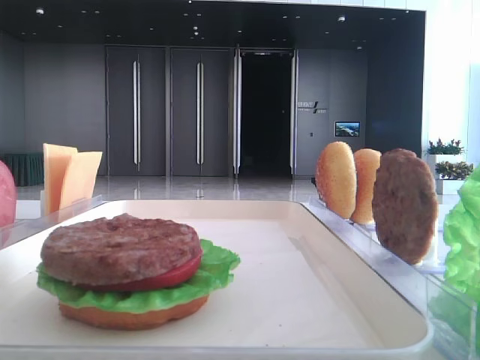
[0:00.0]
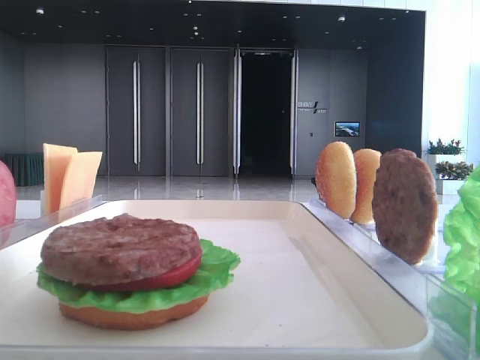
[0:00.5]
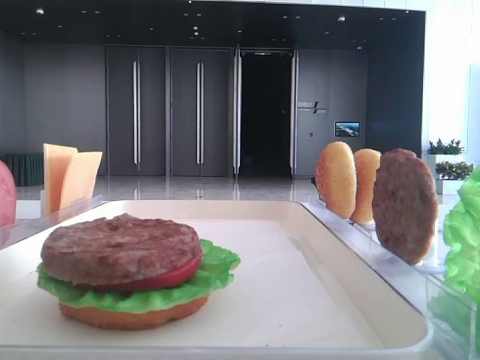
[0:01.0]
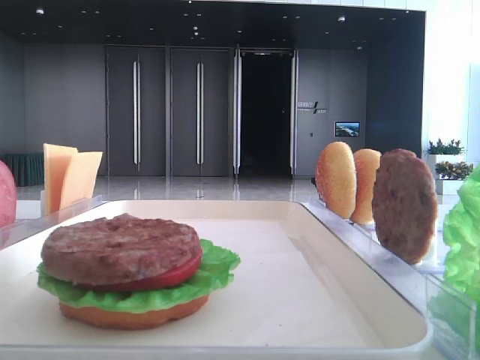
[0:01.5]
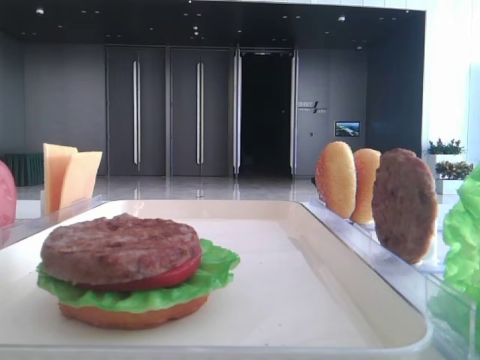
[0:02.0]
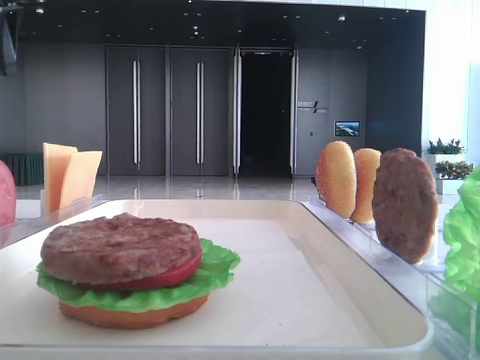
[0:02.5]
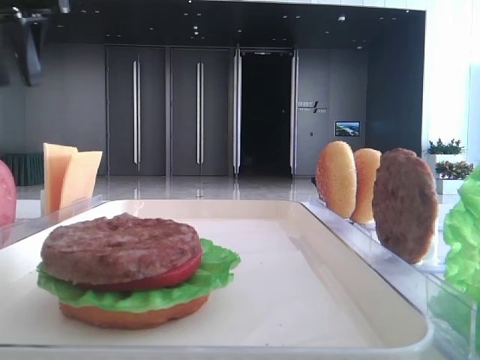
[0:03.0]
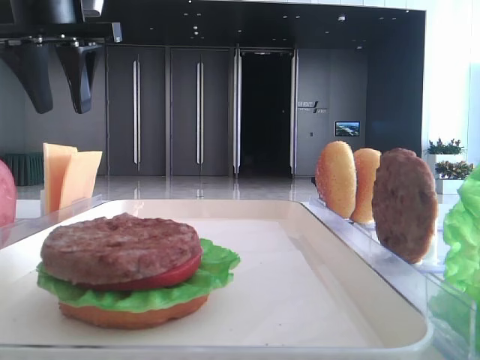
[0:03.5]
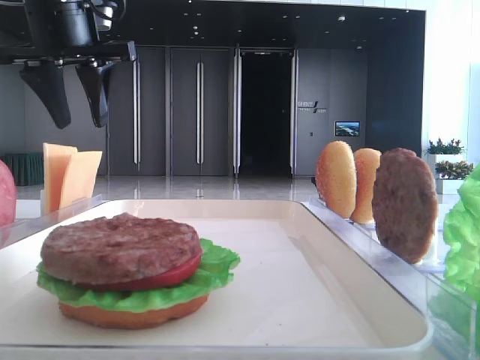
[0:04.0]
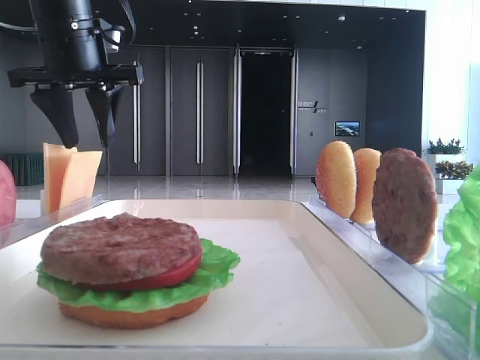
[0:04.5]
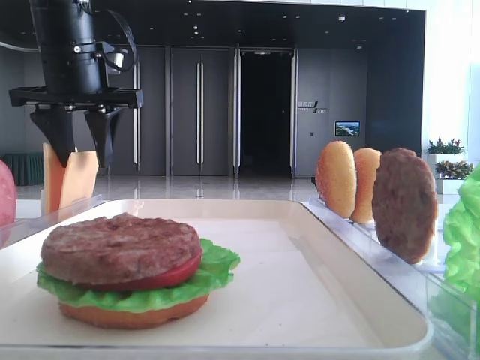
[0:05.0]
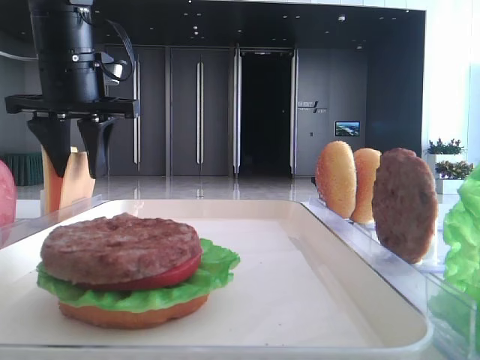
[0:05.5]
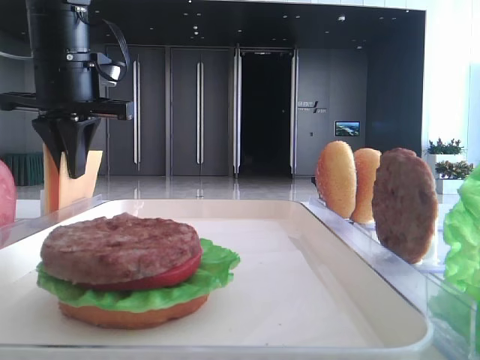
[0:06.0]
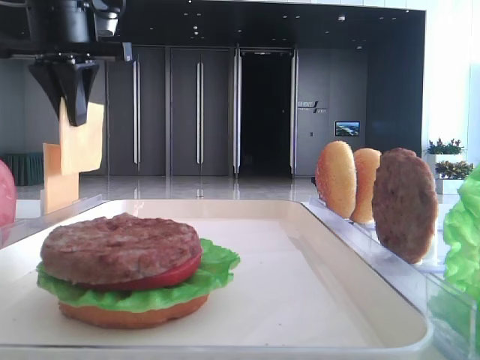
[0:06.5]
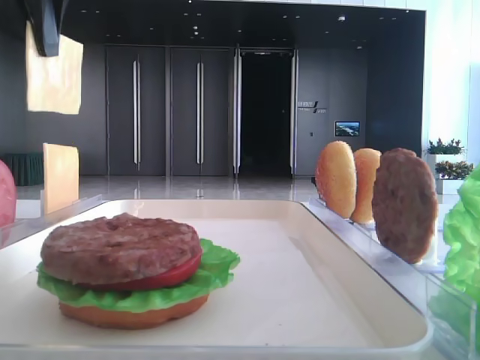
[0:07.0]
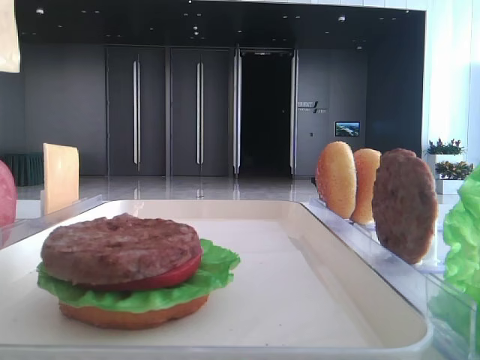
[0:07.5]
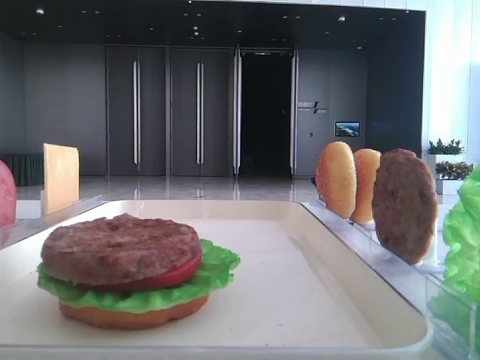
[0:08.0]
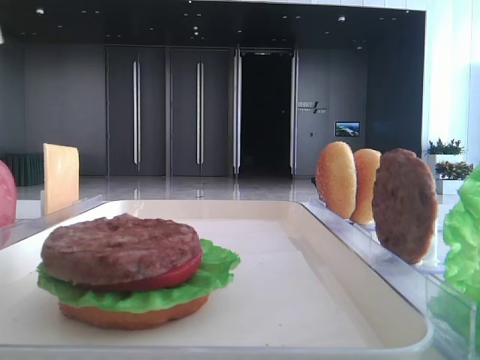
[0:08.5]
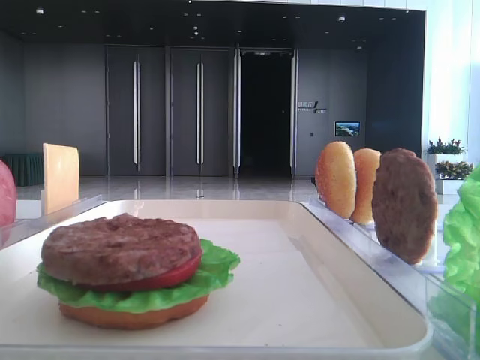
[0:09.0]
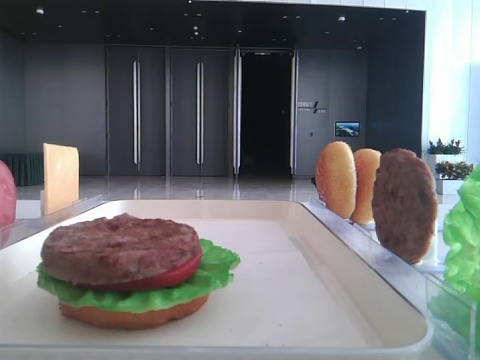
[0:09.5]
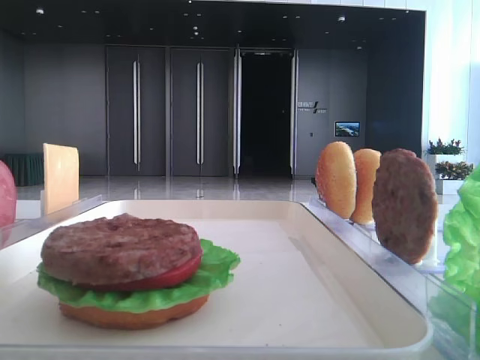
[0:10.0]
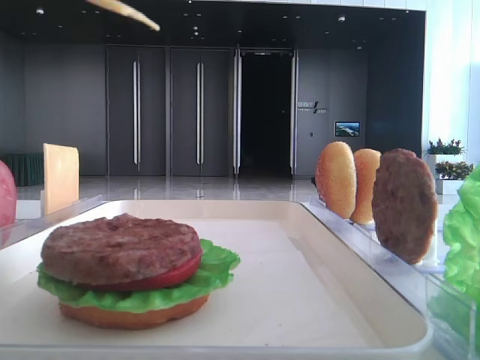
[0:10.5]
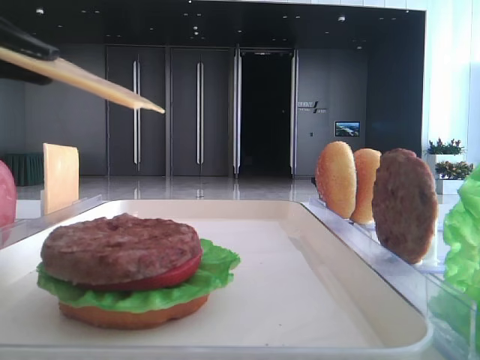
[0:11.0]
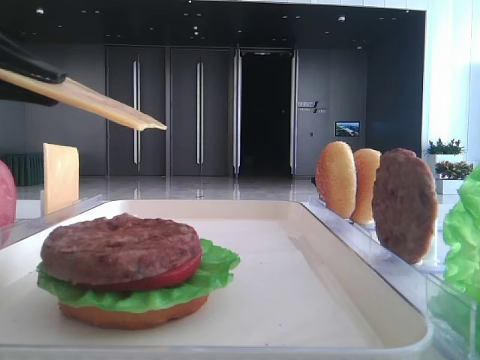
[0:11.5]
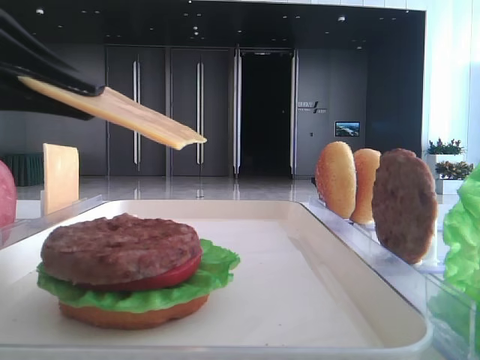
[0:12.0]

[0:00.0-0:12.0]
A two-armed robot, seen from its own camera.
Step, 0:00.0 to 0:05.5: Pick up the cheese slice with the left hand.
0:02.0 to 0:04.0: The left gripper shifts about 20 cm forward, to the right and downward.
0:04.0 to 0:06.0: The left gripper moves downward, roughly 5 cm, and closes its fingers.
0:06.0 to 0:08.0: The left gripper heads backward and upward, covering approximately 30 cm.
0:10.0 to 0:12.0: The left gripper moves downward, some 10 cm.

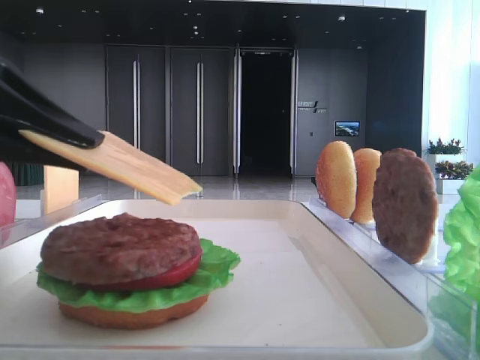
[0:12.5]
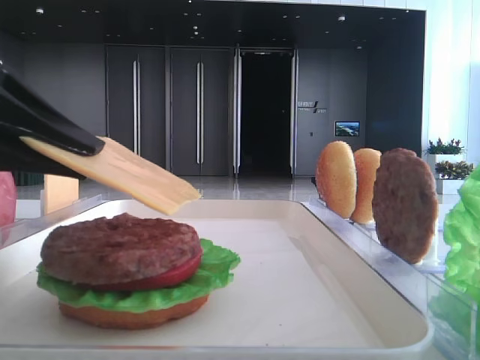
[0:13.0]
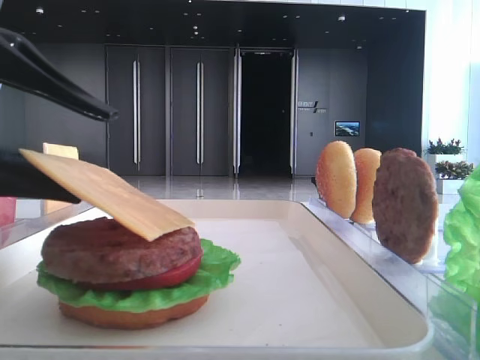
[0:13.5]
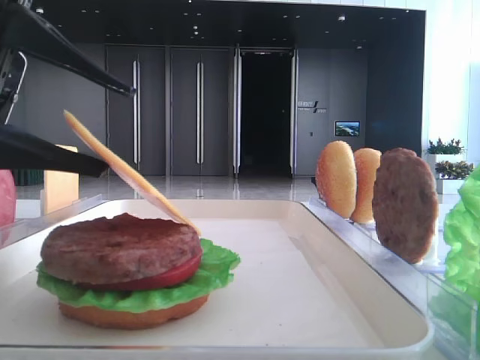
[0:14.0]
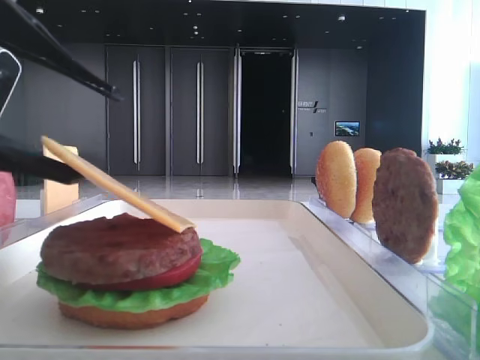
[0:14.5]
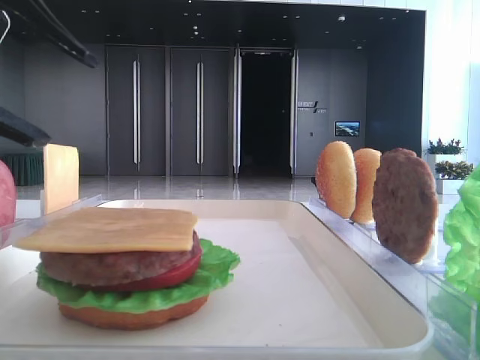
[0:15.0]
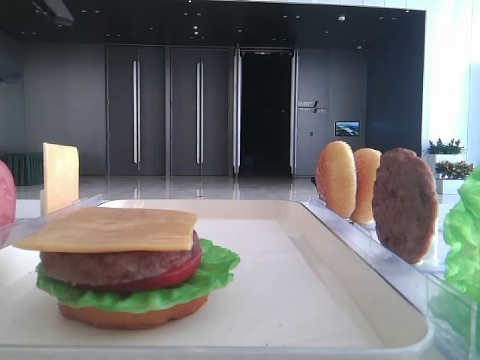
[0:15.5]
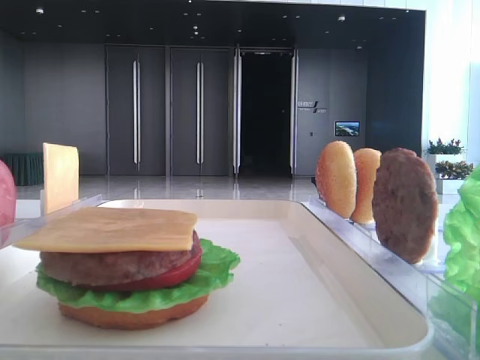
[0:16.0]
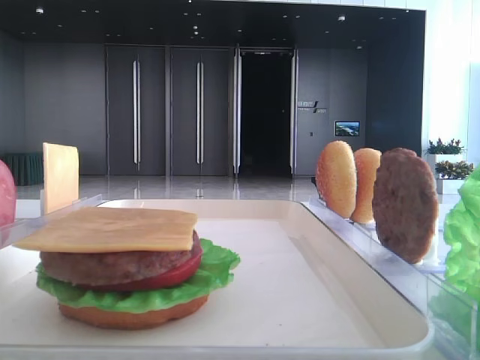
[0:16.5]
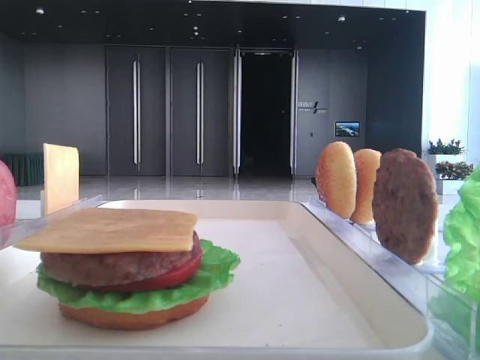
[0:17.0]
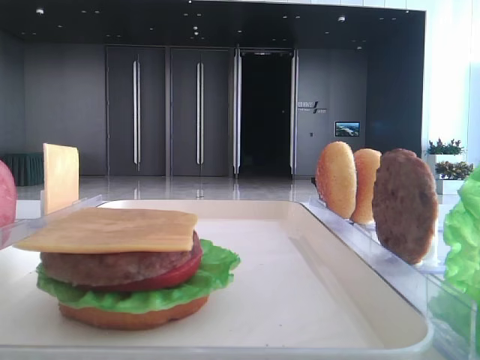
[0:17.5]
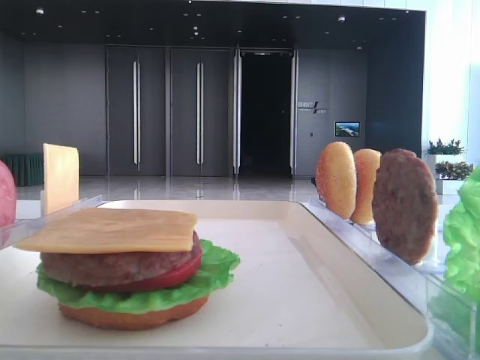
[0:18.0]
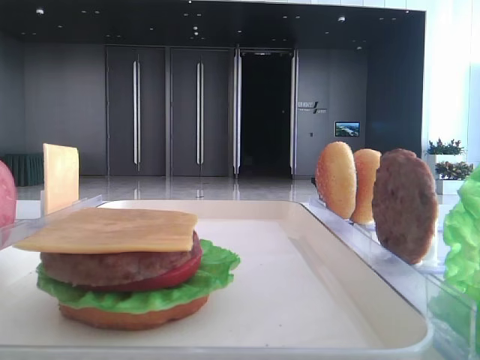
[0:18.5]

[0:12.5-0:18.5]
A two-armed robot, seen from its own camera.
Step, 0:12.5 to 0:14.5: Place the cheese slice on the patty with the left hand.
0:12.5 to 0:14.5: The left gripper opens its fingers.
0:14.5 to 0:16.5: The left gripper goes about 20 cm upward and to the left.

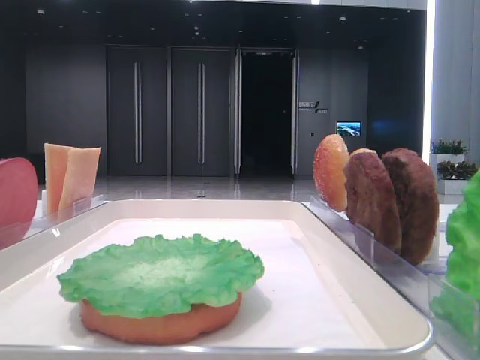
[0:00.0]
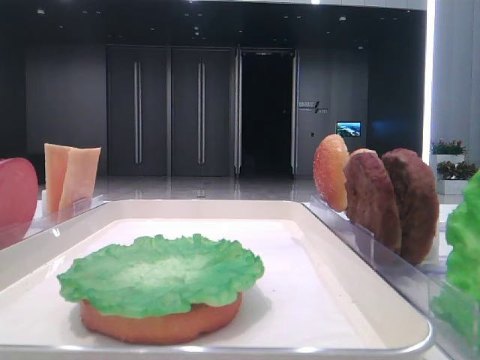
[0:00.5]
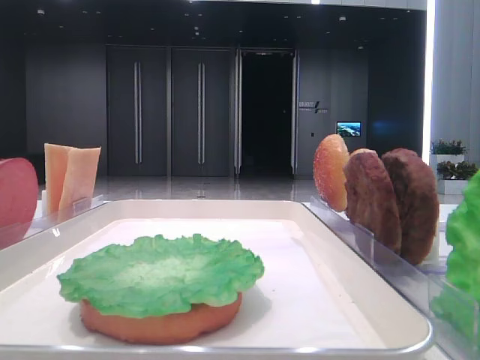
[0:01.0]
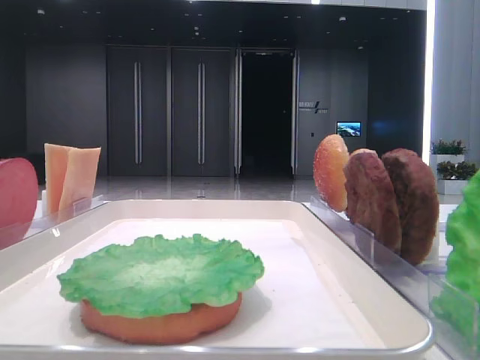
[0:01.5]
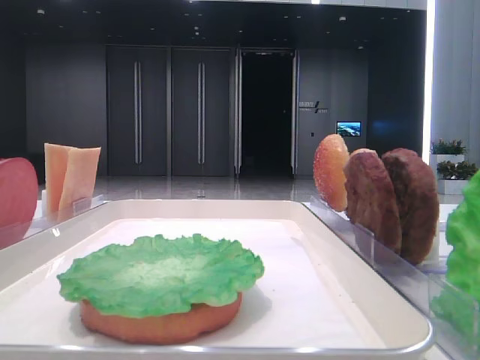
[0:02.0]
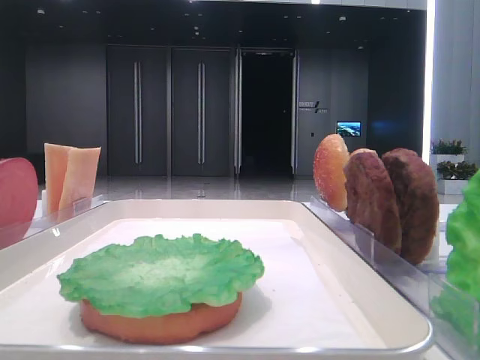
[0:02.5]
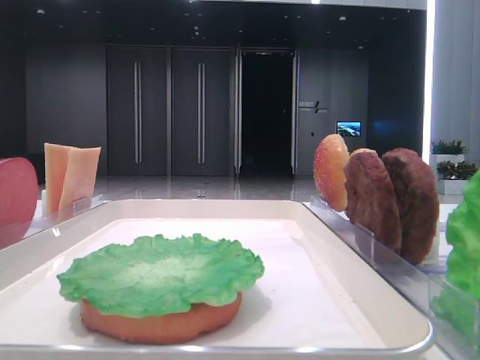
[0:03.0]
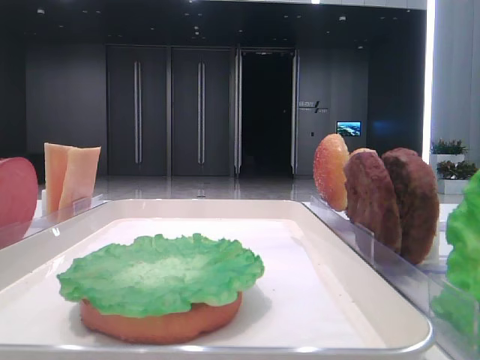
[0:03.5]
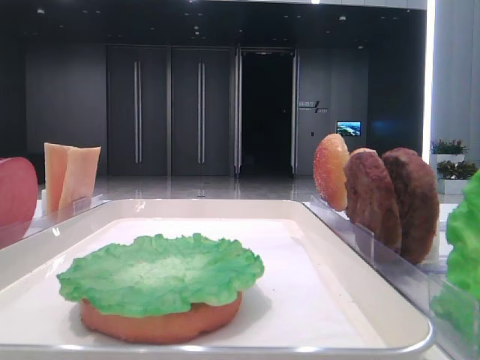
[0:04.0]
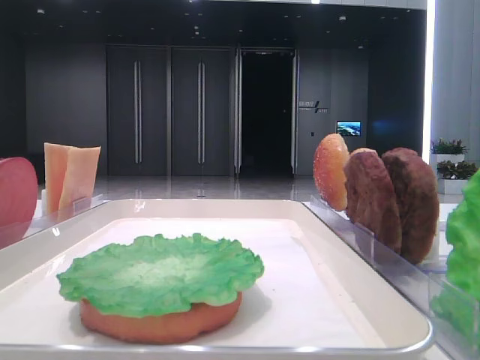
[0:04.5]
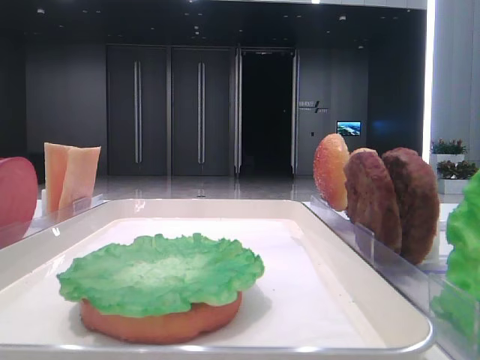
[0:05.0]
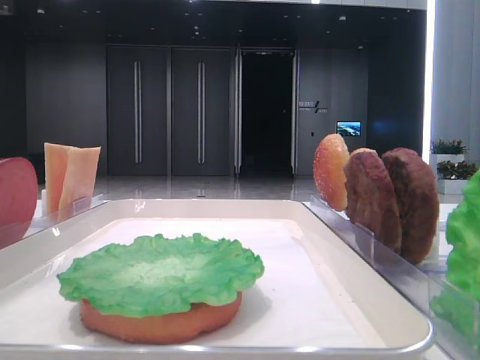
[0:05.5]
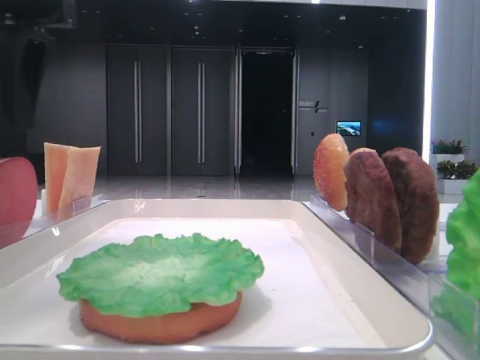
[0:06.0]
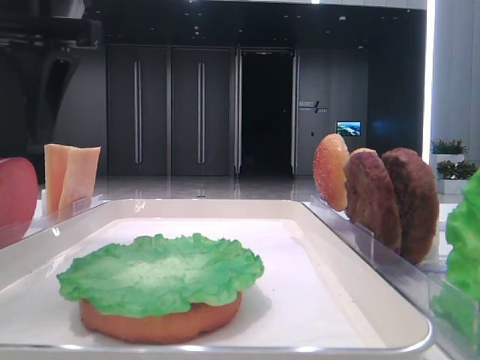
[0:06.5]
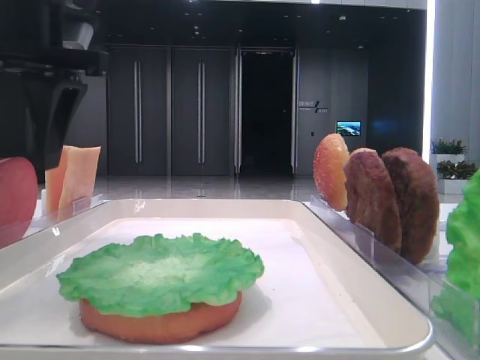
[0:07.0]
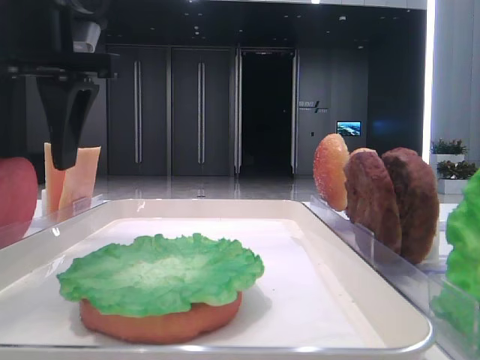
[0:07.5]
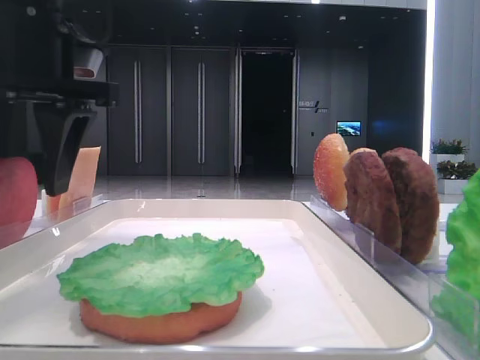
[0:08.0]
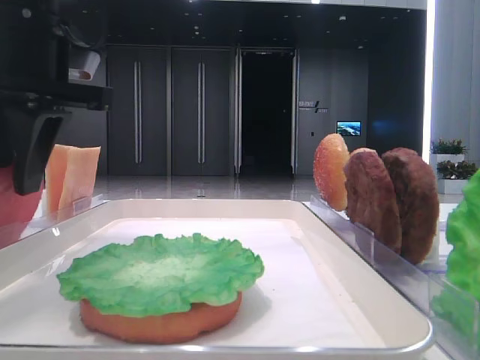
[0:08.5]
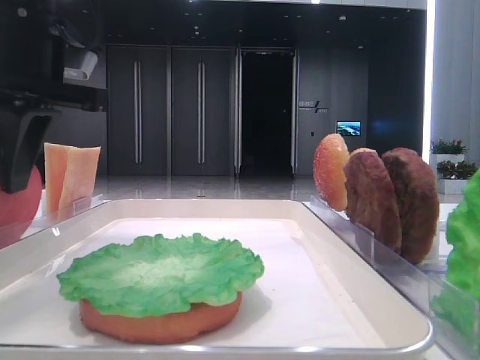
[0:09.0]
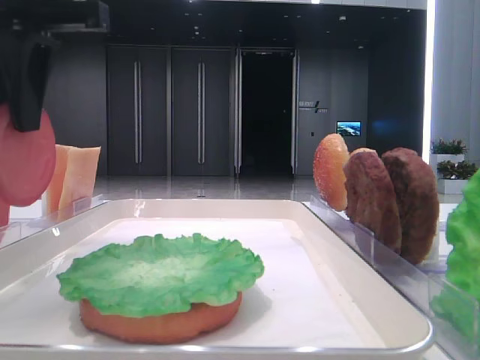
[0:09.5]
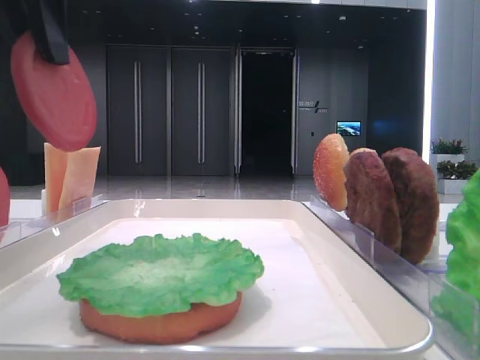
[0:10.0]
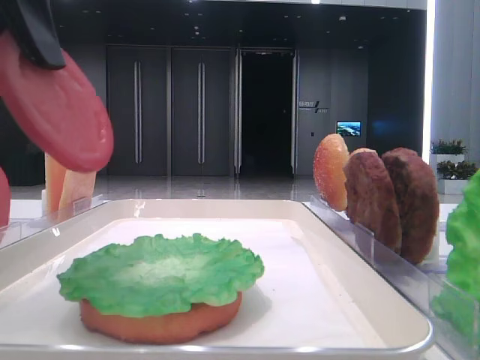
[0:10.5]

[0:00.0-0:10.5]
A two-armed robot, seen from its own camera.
Step, 0:00.0 to 0:09.0: Pick up the tomato slice with the left hand.
0:04.0 to 0:06.5: The left gripper moves to the right, approximately 15 cm.
0:06.5 to 0:08.5: The left gripper closes up.
0:08.5 to 0:10.5: The left gripper shifts about 10 cm backward and upward.
